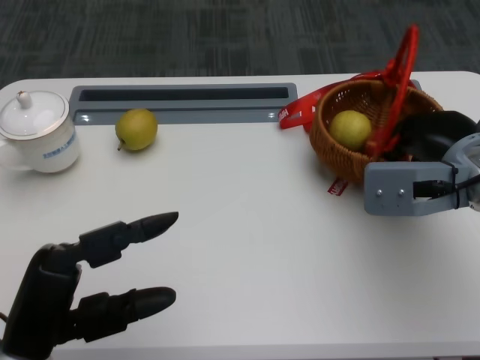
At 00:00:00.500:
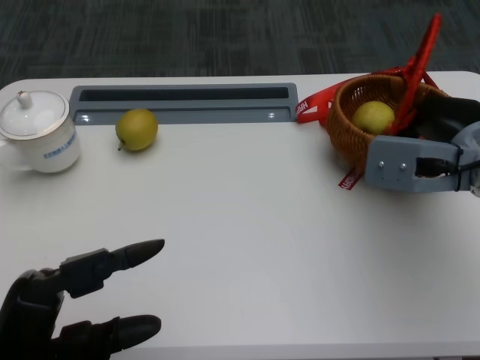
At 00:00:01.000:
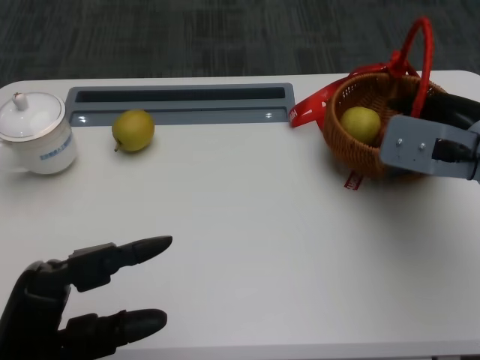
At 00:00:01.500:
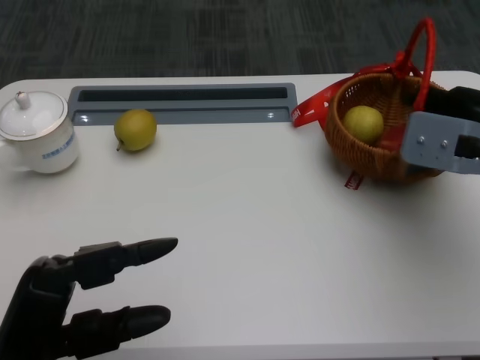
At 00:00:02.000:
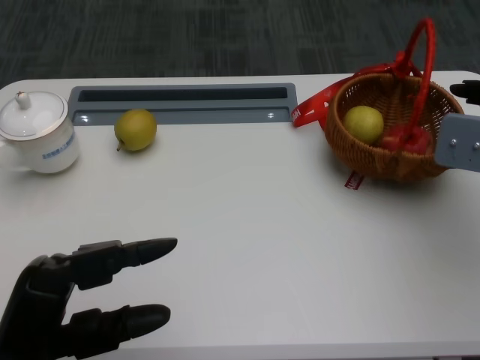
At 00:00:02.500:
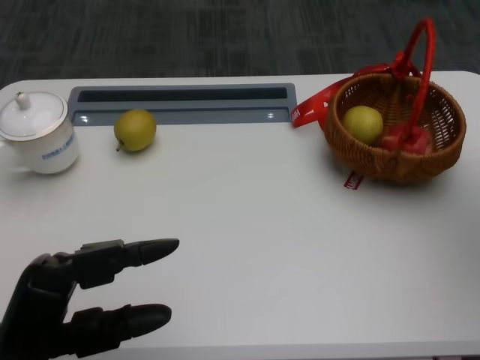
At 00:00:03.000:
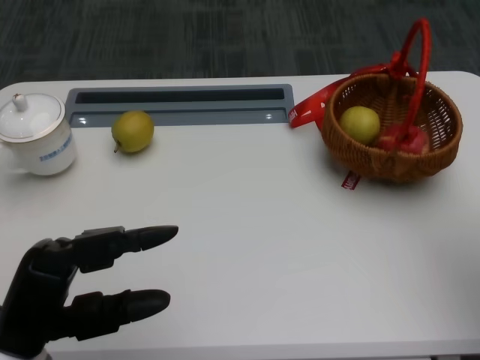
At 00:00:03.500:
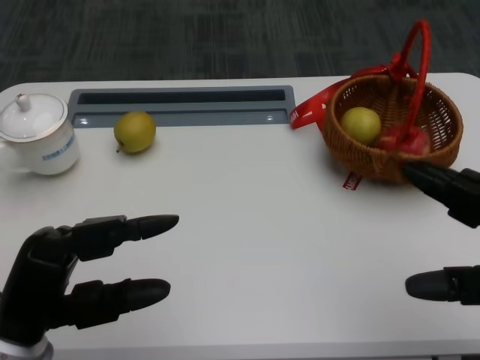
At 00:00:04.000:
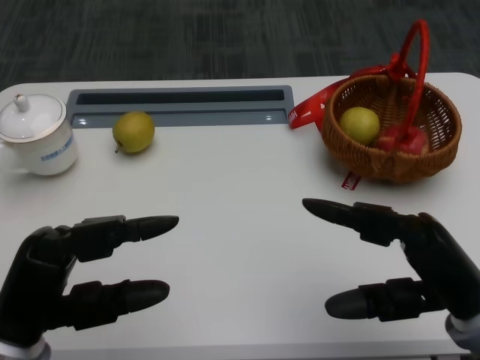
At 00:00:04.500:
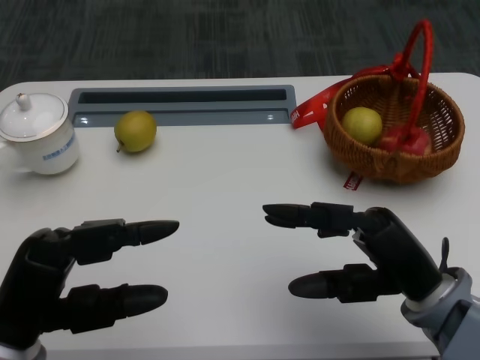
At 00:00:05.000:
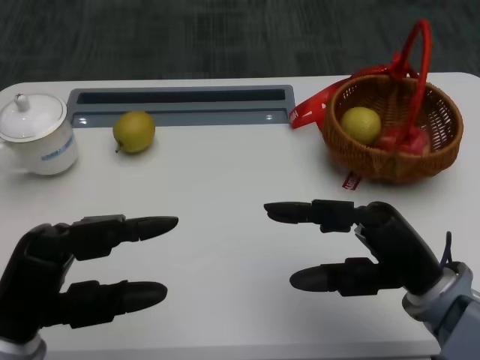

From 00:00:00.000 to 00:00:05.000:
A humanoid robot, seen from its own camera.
From 00:00:00.000 to 00:00:02.500: The right hand is displaced to the right by some 10 cm.
From 00:00:02.500 to 00:00:05.000: The right hand moves to the left, backward and downward, some 20 cm.
